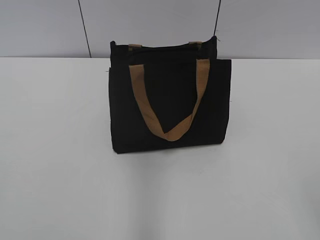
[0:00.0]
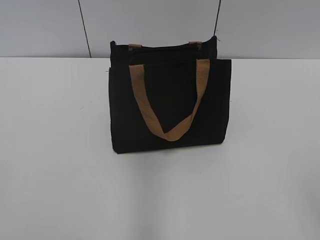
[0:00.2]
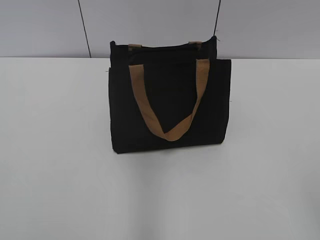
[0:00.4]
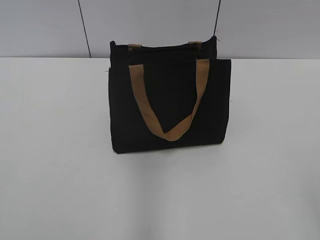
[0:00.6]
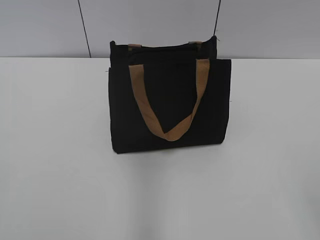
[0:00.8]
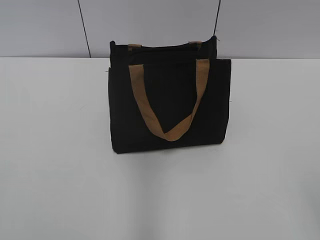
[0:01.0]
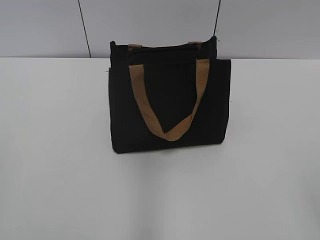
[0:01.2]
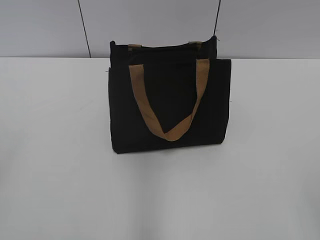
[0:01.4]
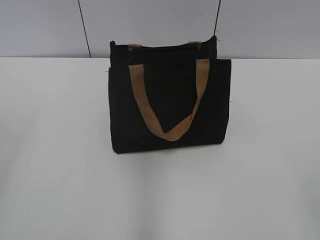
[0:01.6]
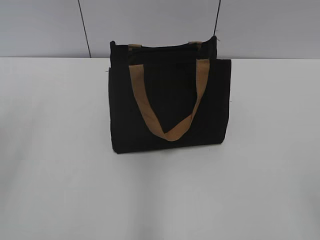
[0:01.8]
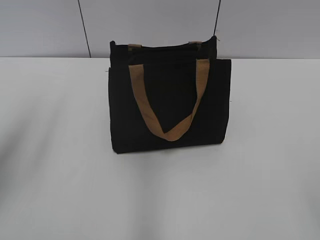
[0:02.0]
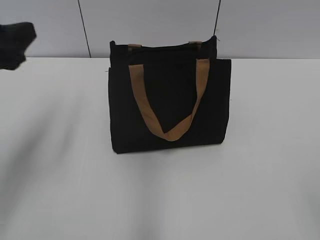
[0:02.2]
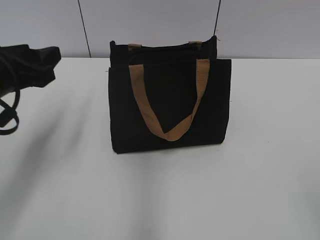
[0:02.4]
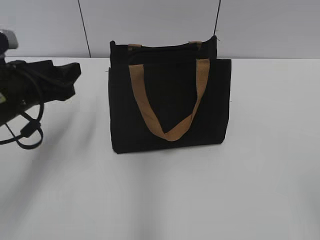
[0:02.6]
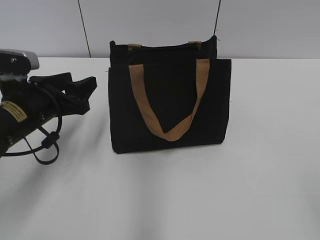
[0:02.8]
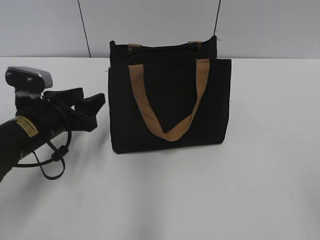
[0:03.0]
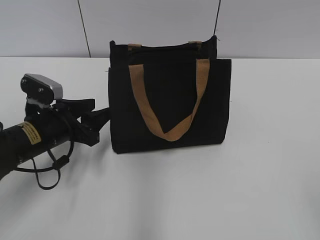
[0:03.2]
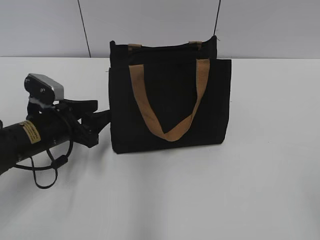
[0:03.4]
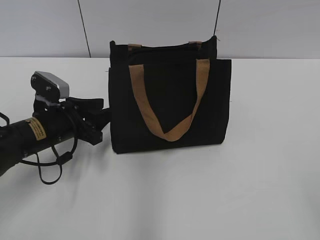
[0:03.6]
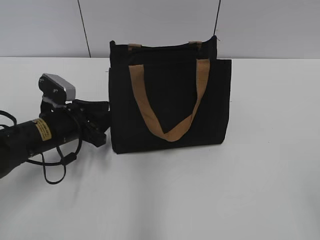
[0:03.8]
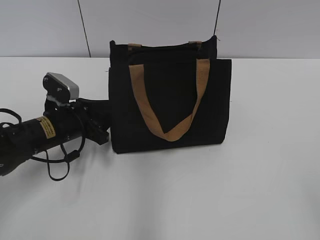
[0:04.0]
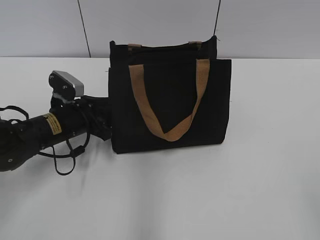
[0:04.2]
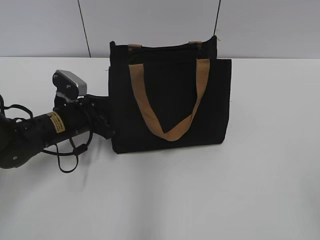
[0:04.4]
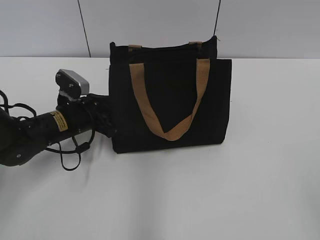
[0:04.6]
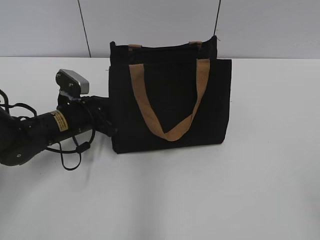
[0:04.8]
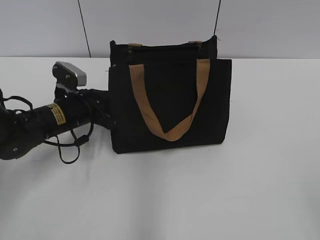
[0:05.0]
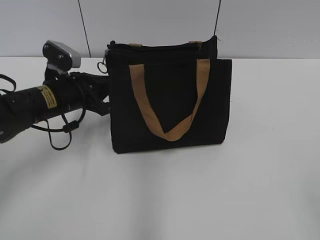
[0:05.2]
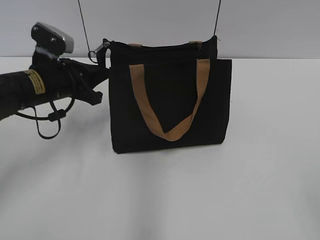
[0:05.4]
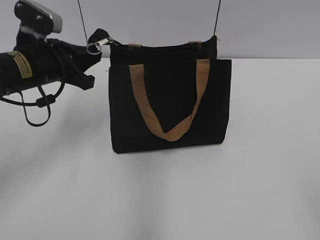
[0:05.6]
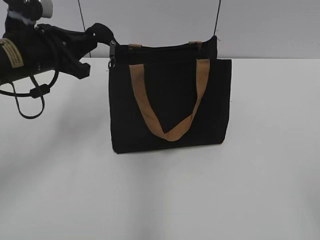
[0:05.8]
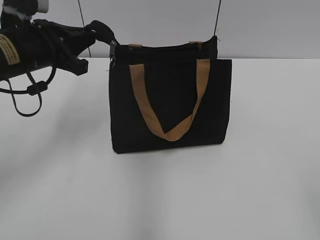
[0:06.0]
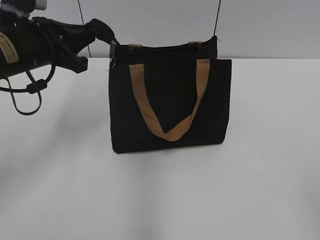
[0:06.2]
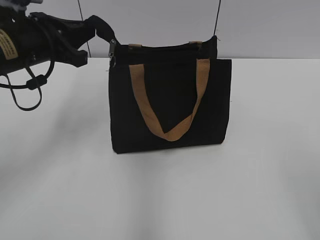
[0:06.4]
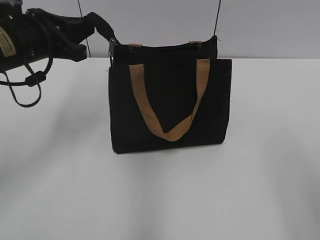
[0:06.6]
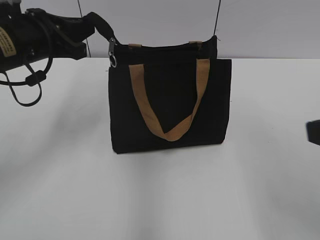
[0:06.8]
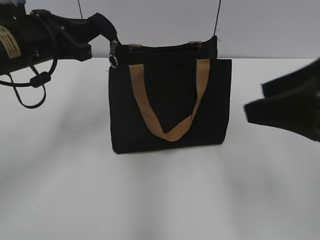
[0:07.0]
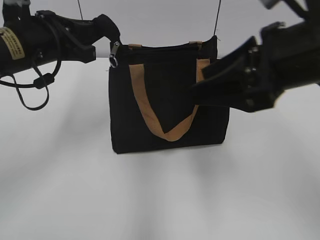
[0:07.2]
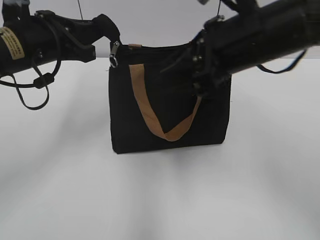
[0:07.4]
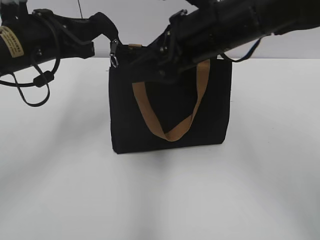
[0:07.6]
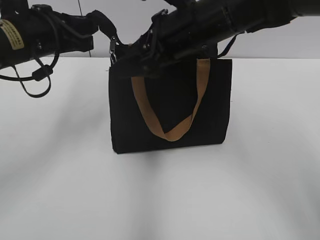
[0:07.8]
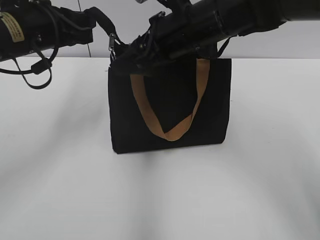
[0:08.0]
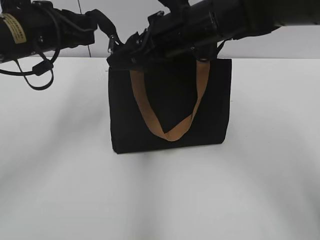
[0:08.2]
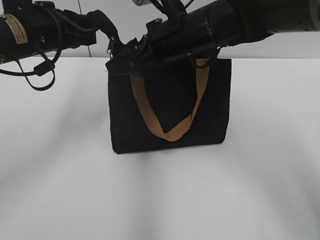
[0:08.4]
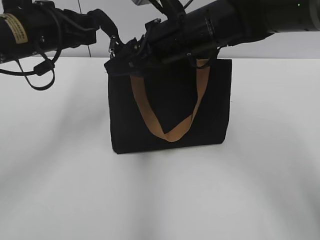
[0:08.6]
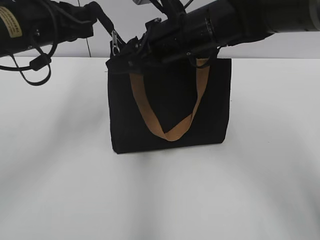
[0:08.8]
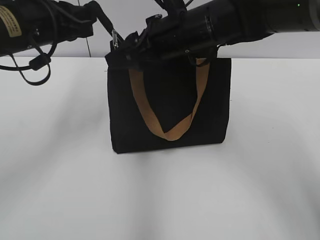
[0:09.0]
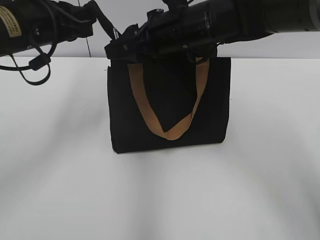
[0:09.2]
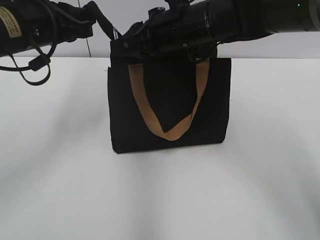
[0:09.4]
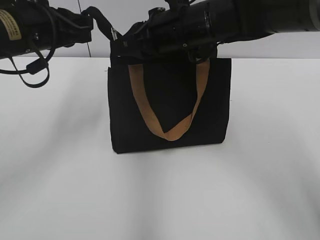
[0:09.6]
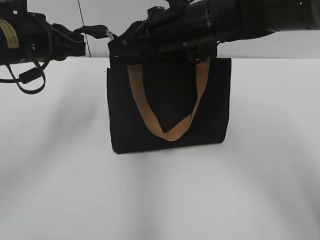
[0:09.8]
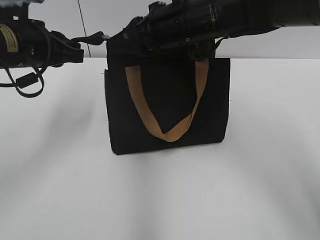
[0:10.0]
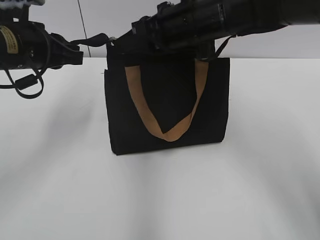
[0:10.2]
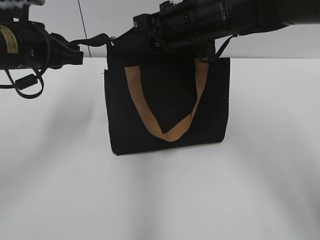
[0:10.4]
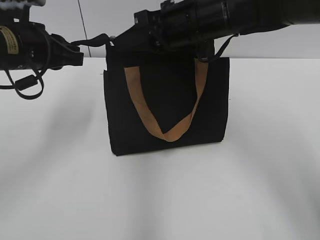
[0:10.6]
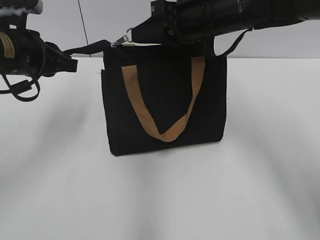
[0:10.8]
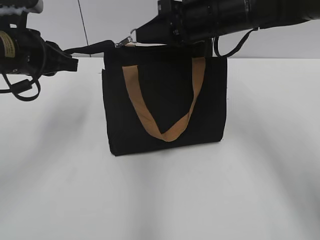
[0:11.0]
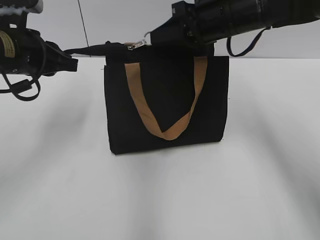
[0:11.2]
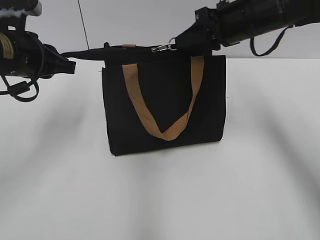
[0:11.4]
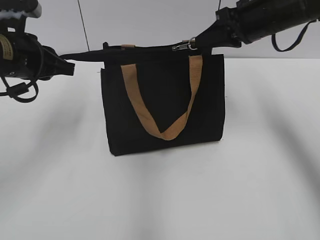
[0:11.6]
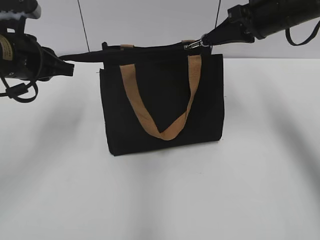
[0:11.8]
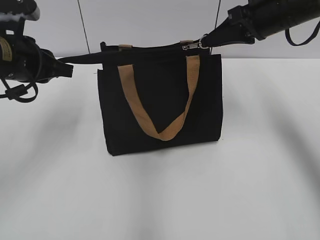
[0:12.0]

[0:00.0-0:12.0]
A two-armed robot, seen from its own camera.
Step, 0:00.0 to 0:12.0: Zip up the bag with your right hand.
0:01.6 to 0:03.0: The left gripper heads downward, forward and to the right, covering roughly 30 cm.
0:03.0 to 0:04.4: The left gripper is displaced forward by some 5 cm, and closes up.
0:04.4 to 0:06.0: The left gripper is displaced upward by roughly 15 cm, and closes its fingers.
0:06.0 to 0:07.6: The right gripper is displaced forward and to the left by some 40 cm.
0:07.6 to 0:09.0: The right gripper moves forward, some 5 cm.
0:09.0 to 0:10.4: The right gripper closes.
0:10.4 to 0:12.0: The right gripper is displaced to the right by about 15 cm.

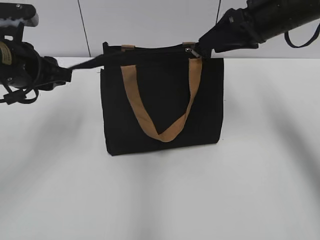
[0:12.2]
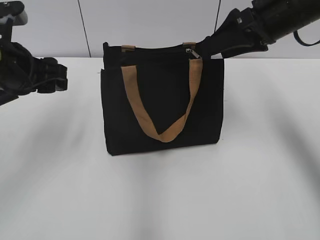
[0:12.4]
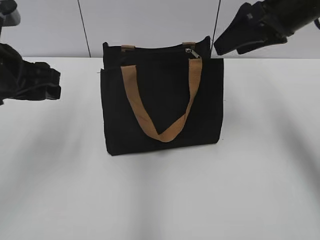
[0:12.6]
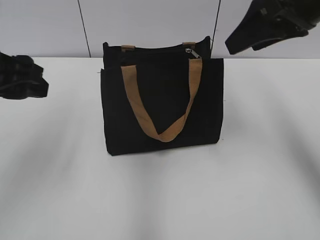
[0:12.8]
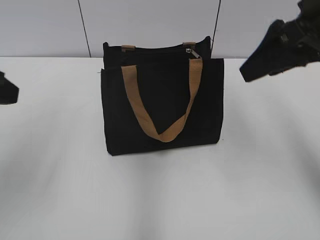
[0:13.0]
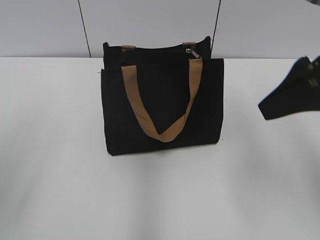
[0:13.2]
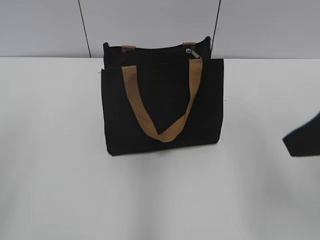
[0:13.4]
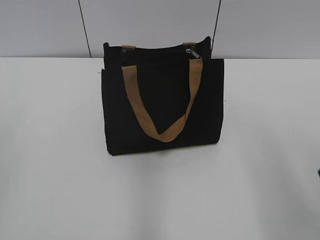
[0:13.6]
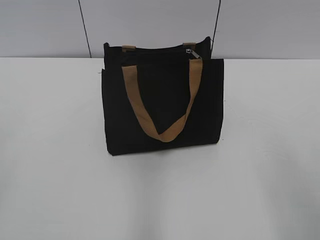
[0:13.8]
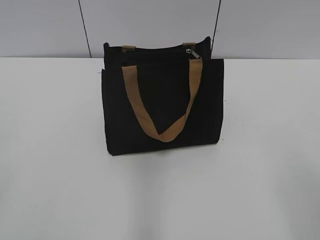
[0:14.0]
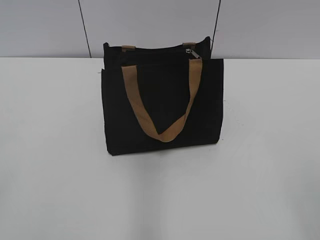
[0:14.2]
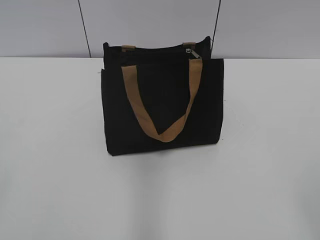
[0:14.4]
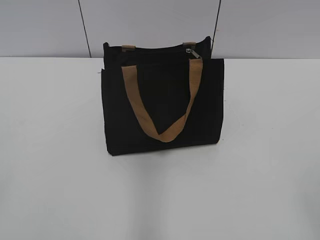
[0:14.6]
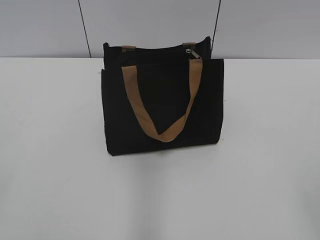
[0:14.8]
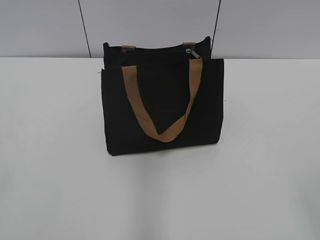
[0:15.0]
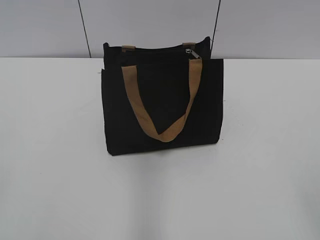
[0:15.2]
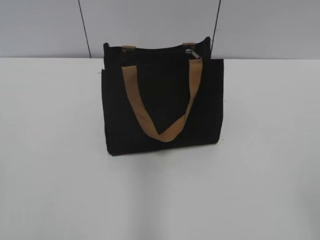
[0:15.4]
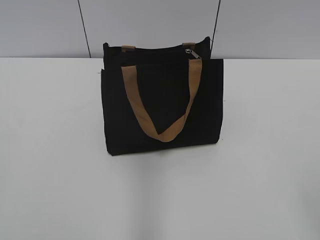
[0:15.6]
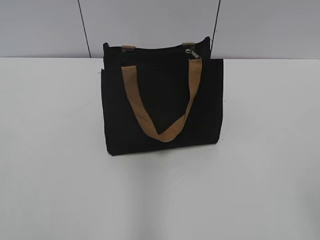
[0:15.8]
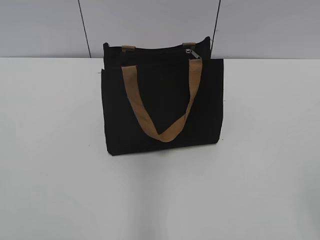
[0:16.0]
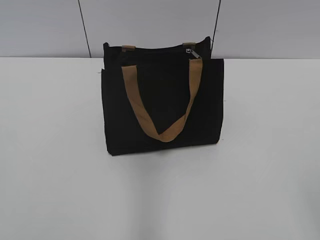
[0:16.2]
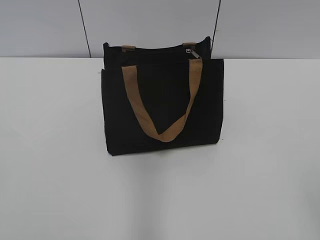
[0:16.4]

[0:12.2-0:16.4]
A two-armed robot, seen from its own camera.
0:12.2 to 0:13.6: The right gripper goes roughly 25 cm backward, while the left gripper shifts about 25 cm backward and upward, and opens.
0:13.6 to 0:15.0: The right gripper goes roughly 15 cm backward.

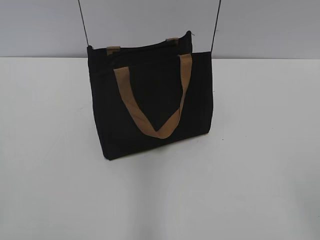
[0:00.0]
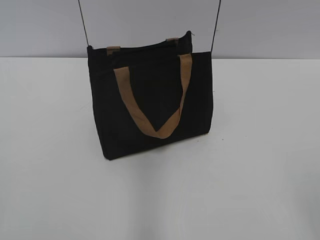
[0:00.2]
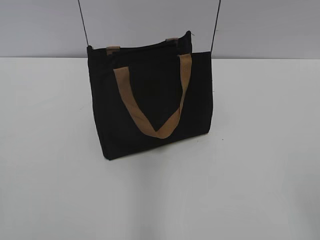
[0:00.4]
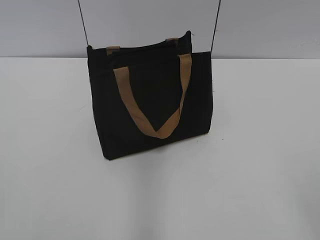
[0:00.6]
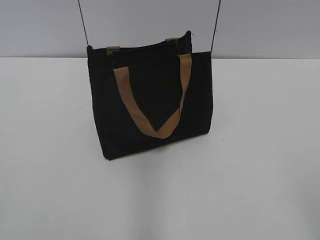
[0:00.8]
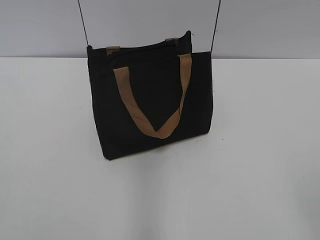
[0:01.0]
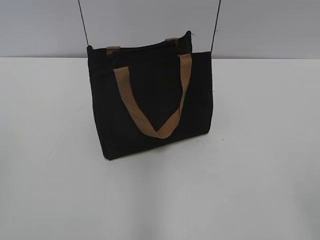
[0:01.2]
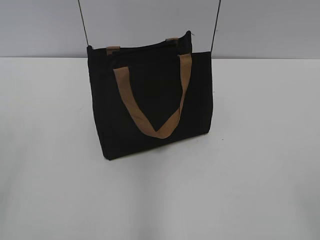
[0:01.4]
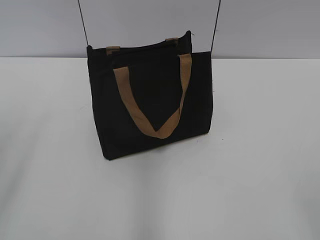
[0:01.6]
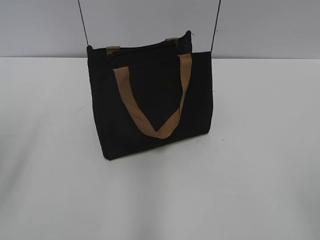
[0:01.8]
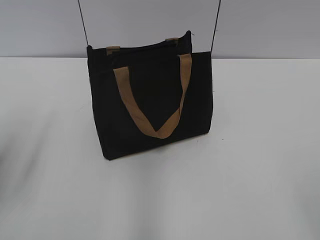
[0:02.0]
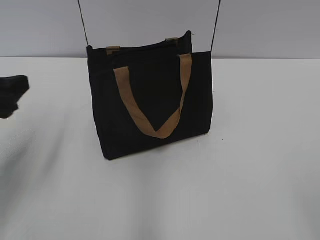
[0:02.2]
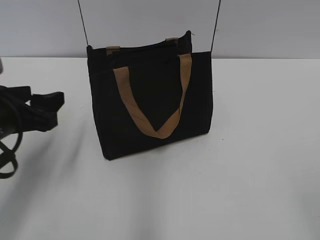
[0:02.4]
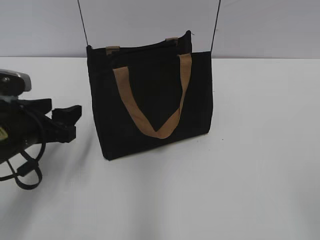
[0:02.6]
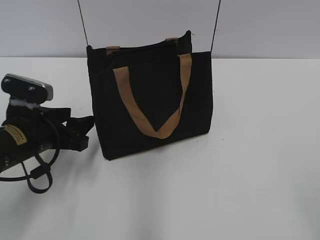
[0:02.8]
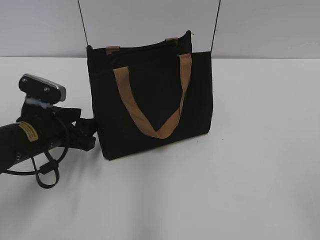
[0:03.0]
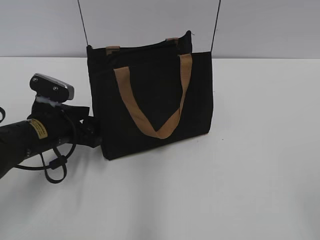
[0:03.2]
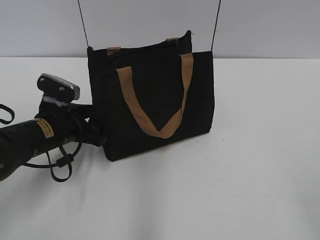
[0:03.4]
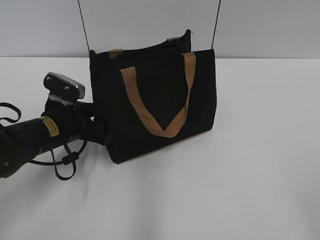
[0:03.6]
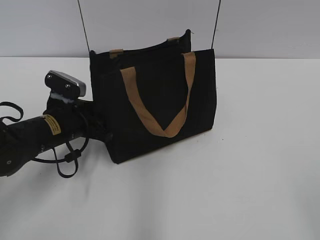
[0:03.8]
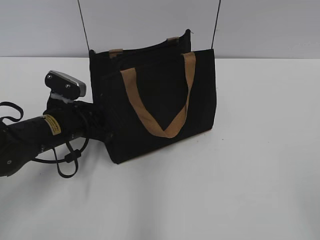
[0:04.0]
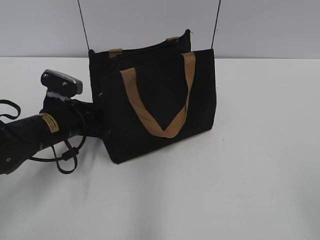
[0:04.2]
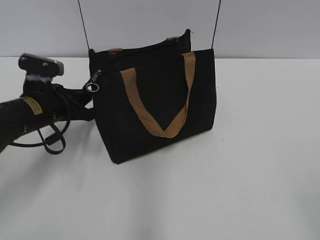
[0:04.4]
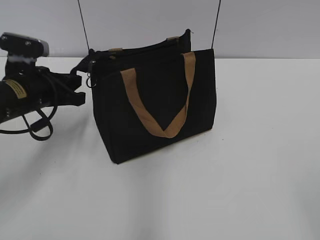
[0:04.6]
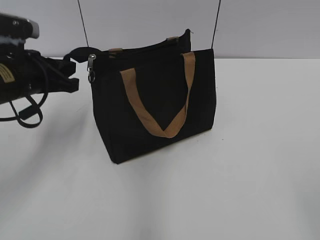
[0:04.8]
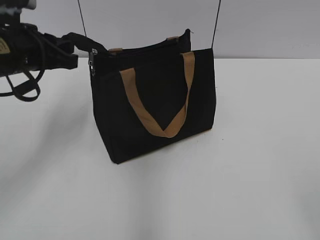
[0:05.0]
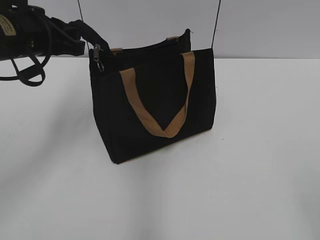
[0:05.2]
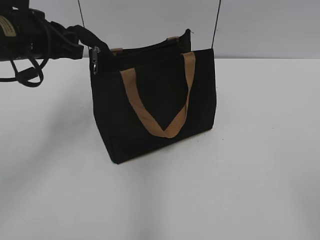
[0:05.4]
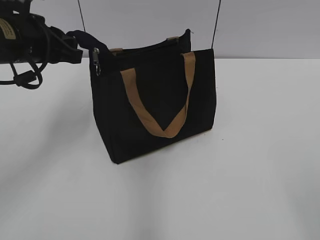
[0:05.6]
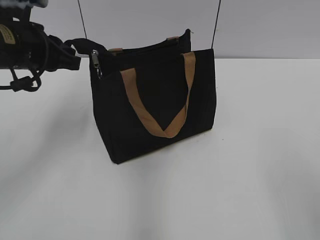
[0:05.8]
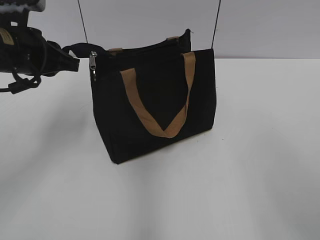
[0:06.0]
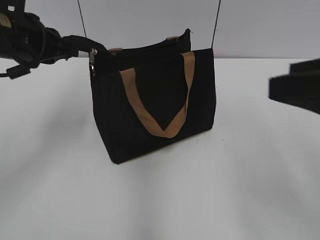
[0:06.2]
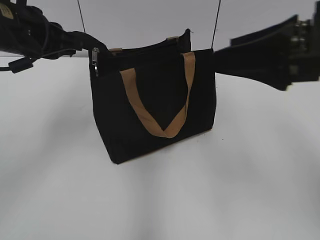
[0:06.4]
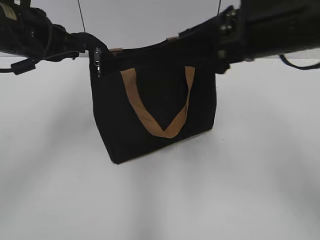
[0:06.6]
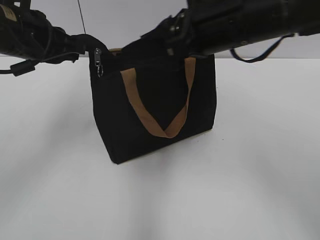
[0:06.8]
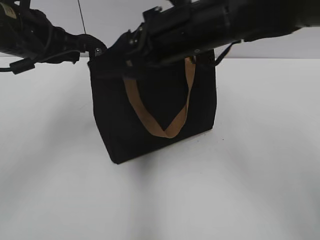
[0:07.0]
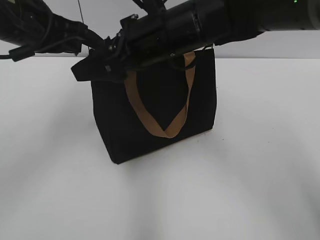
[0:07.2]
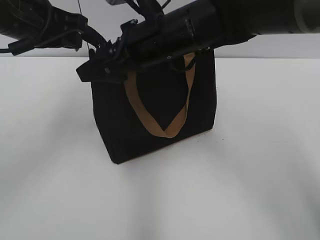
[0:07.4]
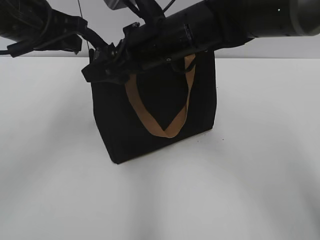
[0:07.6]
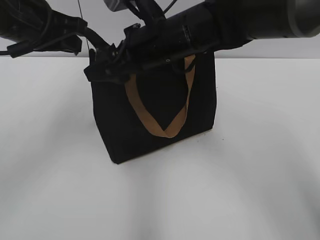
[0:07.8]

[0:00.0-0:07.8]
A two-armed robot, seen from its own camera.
0:01.6 to 0:03.2: The left gripper goes roughly 30 cm downward, forward and to the right.
0:03.2 to 0:04.6: The left gripper ends up about 5 cm from where it was, and closes.
0:04.6 to 0:06.2: The left gripper moves upward, about 10 cm, while the right gripper moves forward, approximately 10 cm.
0:06.2 to 0:07.8: The right gripper moves forward and to the left, roughly 30 cm.
